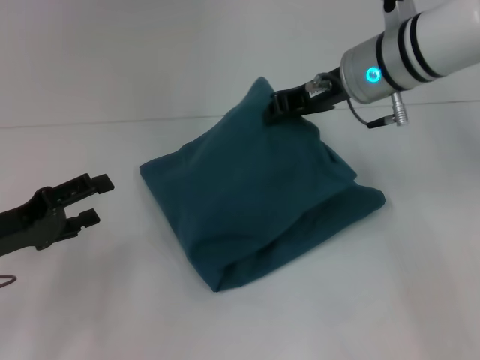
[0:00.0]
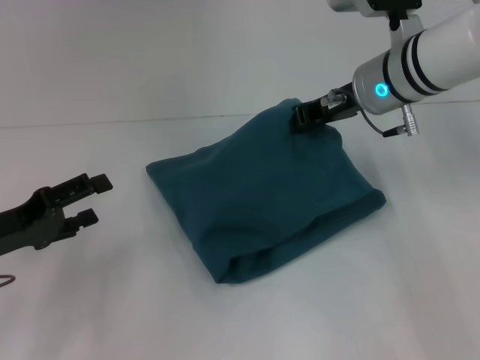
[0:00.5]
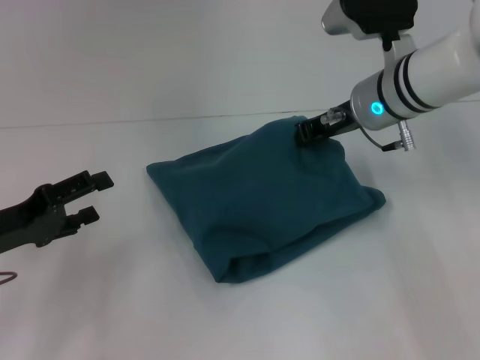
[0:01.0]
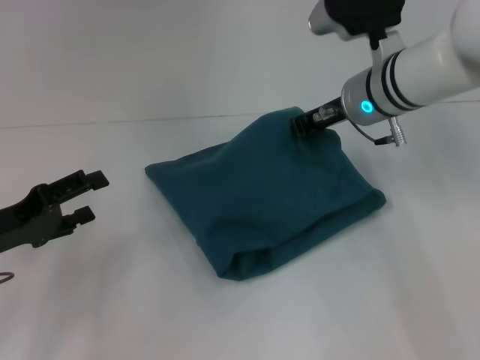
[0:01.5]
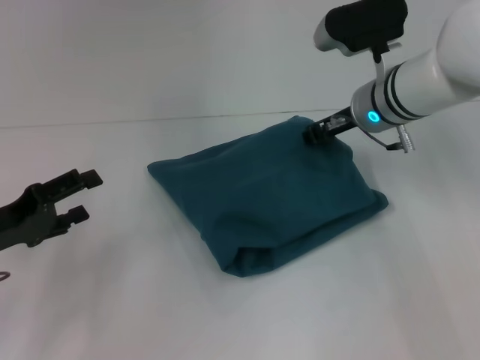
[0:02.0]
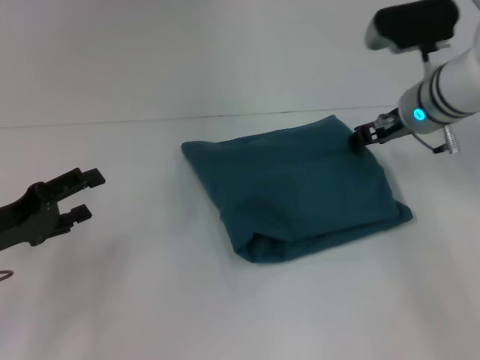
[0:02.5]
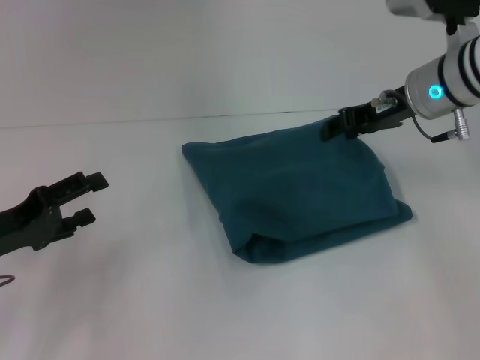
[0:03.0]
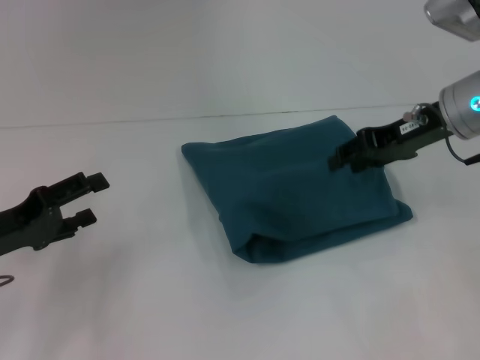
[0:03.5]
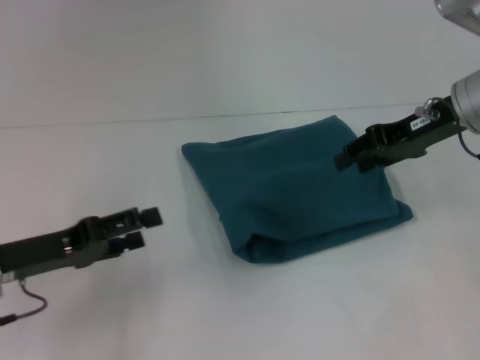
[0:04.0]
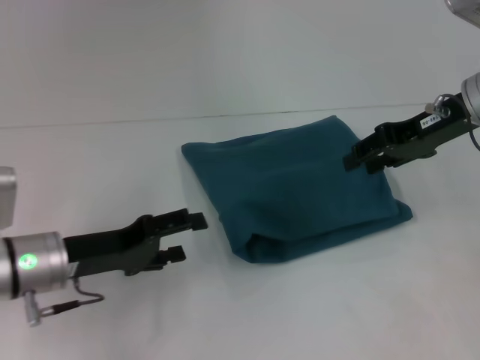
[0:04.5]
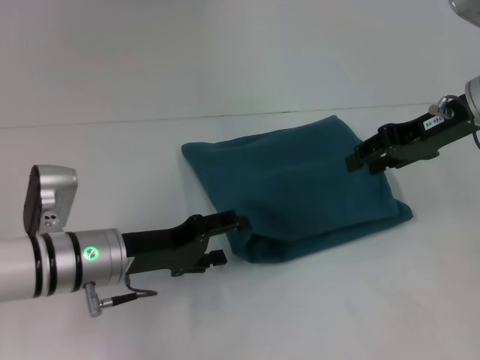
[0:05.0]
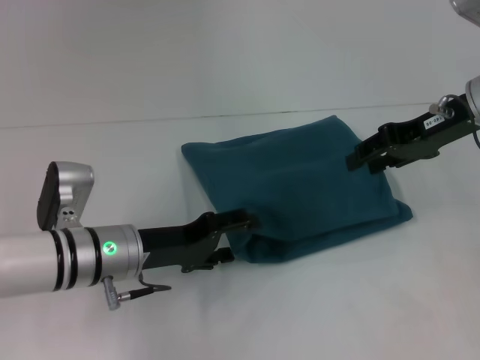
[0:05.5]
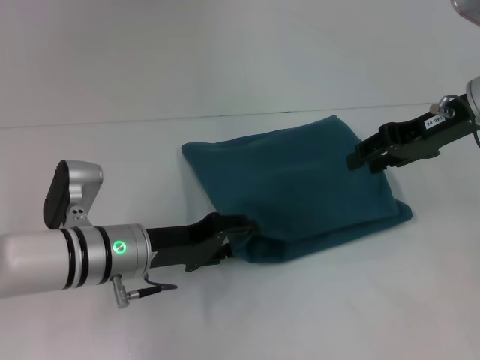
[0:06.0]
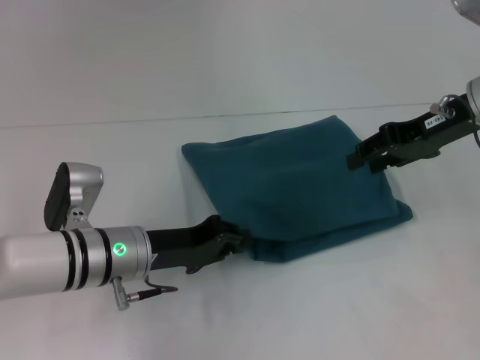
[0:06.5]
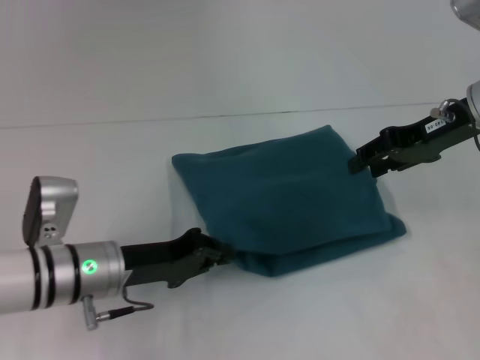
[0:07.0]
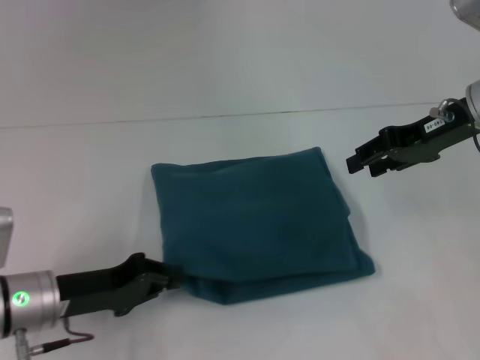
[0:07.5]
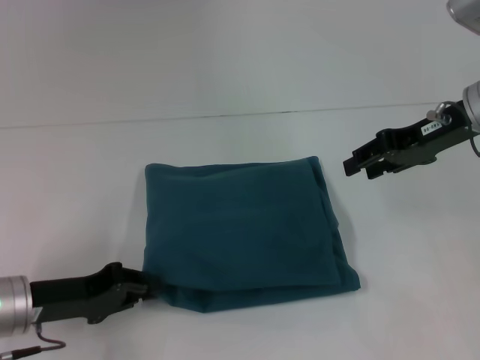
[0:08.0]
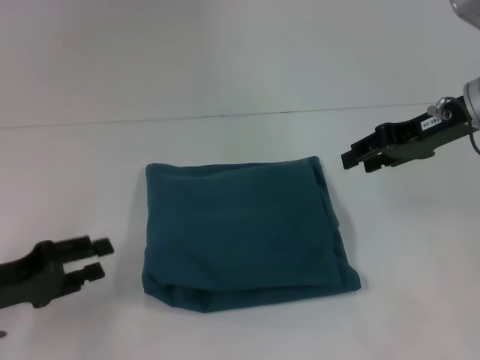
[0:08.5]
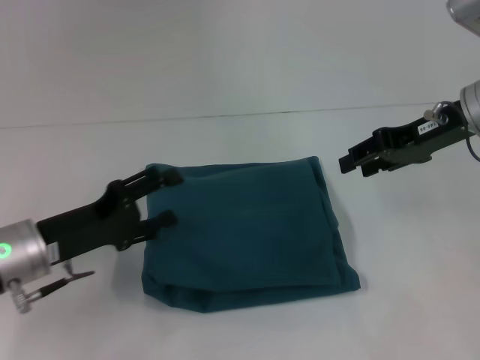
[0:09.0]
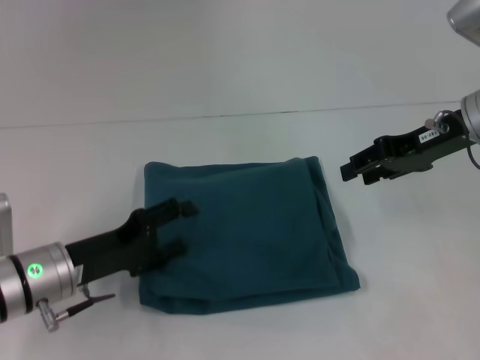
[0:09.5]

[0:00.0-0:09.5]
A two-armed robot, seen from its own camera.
0:00.0 to 0:02.0: The right gripper heads downward, covering about 5 cm.
0:02.0 to 0:04.0: The right gripper moves to the right, approximately 10 cm, and opens its fingers.
0:04.0 to 0:05.5: The left gripper moves to the right, about 10 cm.
0:05.5 to 0:07.5: The left gripper heads to the left, covering roughly 10 cm, and closes its fingers.
0:07.5 to 0:09.5: The left gripper travels to the left and back again, roughly 5 cm each way, and opens up.

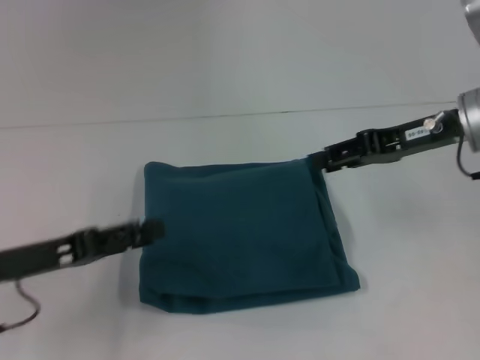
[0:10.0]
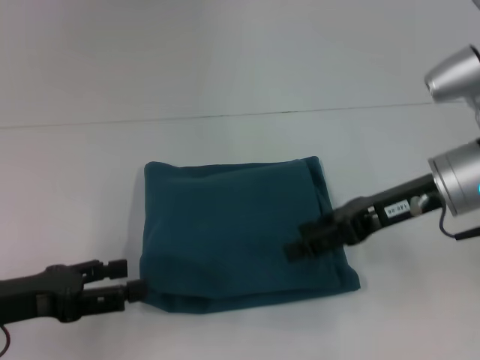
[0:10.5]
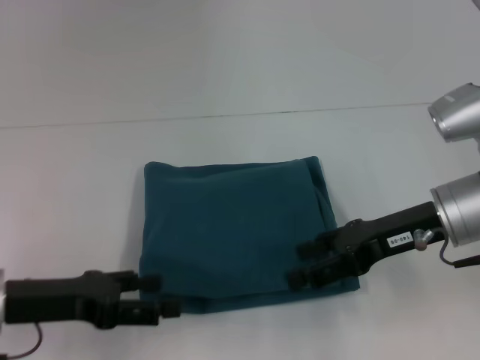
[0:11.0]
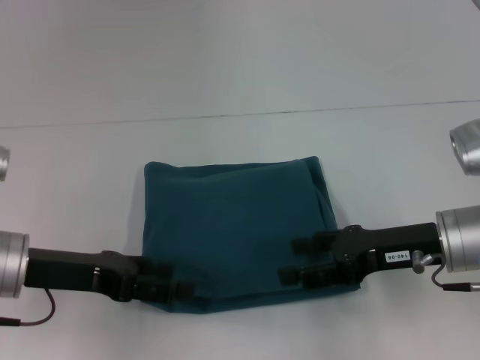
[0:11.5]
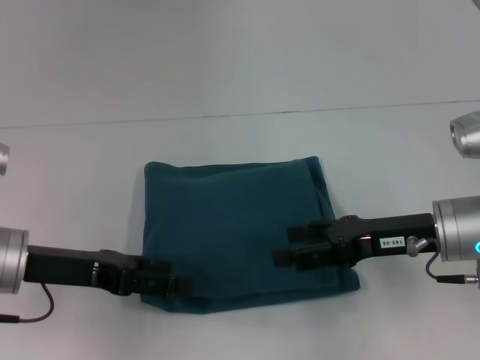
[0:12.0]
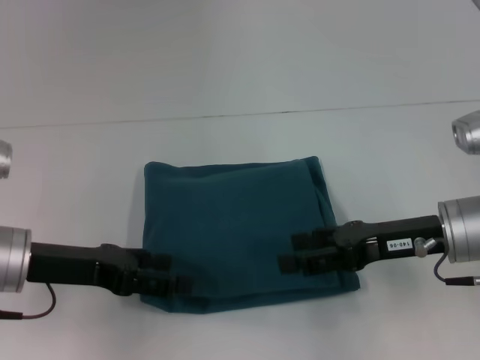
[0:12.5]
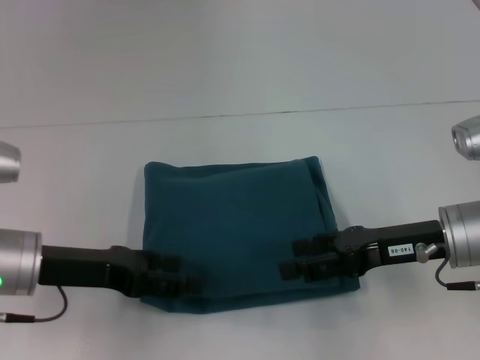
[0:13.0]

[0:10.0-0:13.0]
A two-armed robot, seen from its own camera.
0:10.0 to 0:11.5: The right gripper heads downward and backward, covering some 10 cm.
0:11.5 to 0:13.0: There are only small adjustments of the grippers.

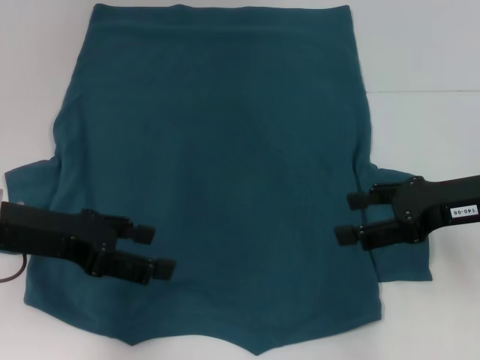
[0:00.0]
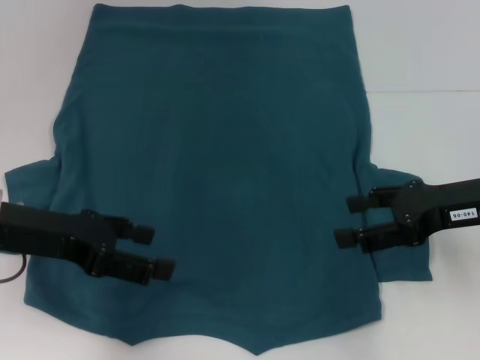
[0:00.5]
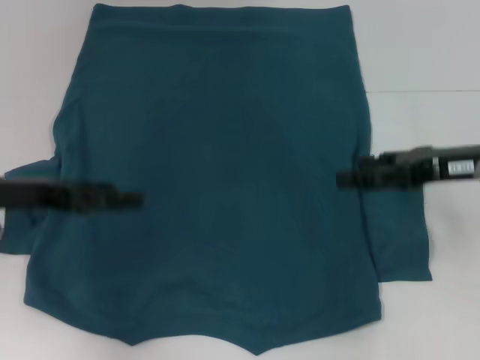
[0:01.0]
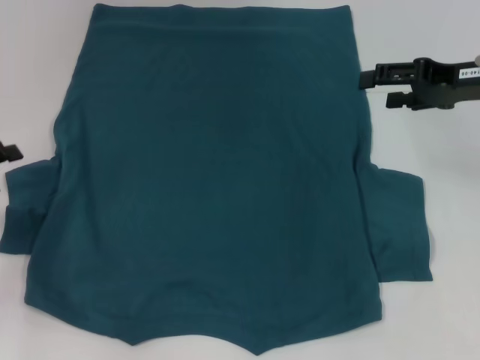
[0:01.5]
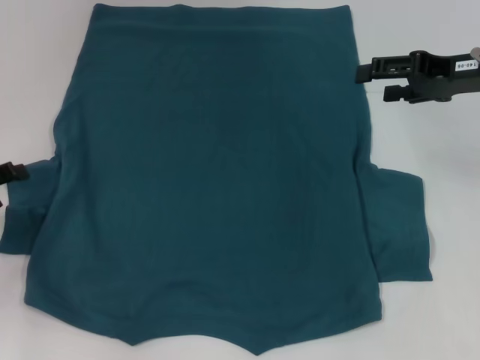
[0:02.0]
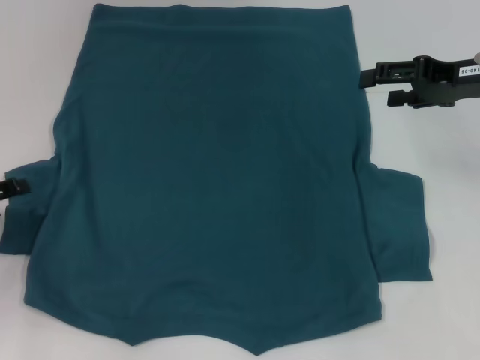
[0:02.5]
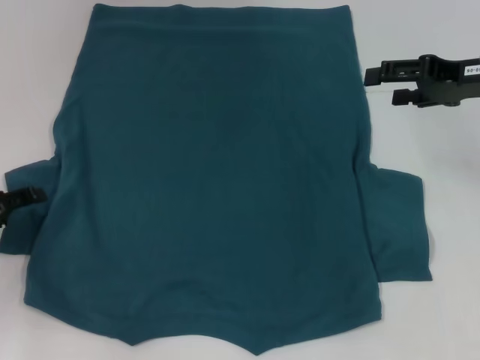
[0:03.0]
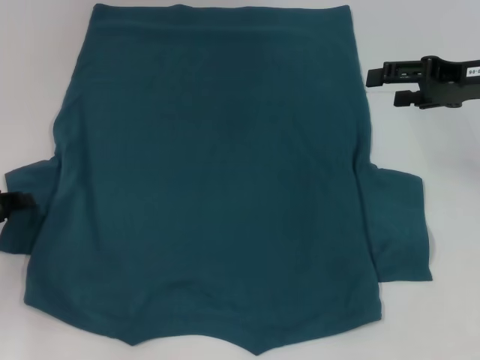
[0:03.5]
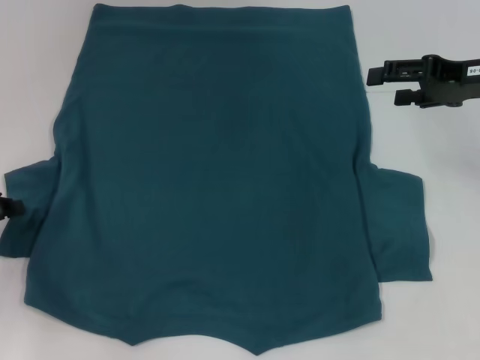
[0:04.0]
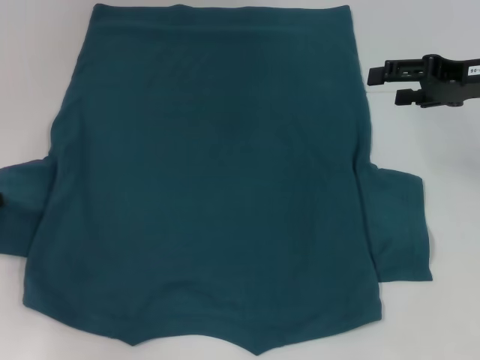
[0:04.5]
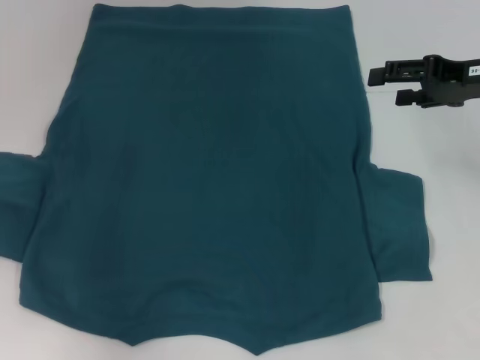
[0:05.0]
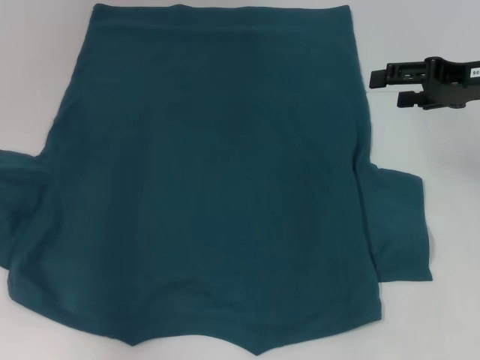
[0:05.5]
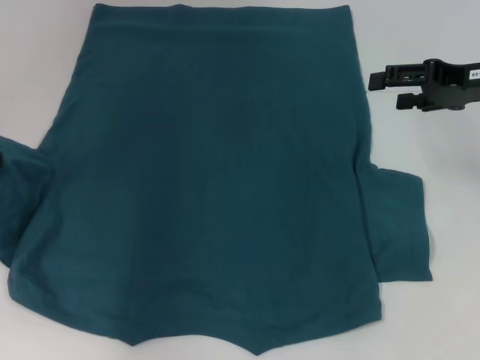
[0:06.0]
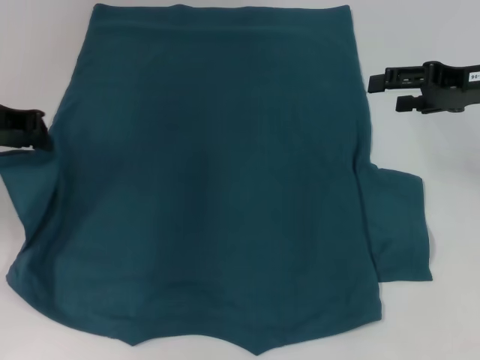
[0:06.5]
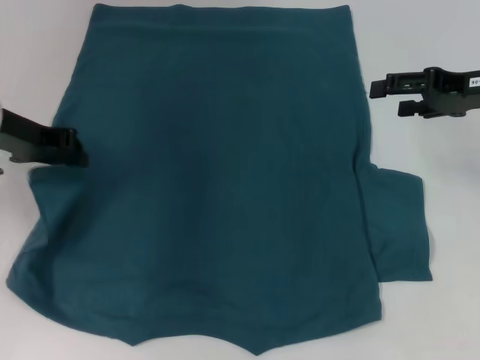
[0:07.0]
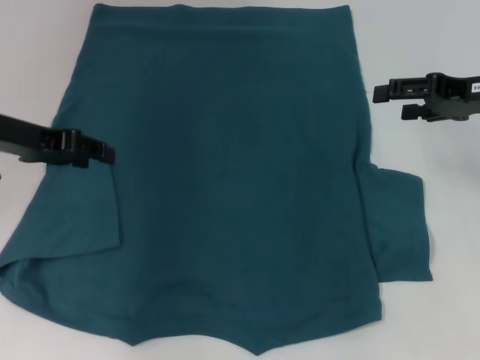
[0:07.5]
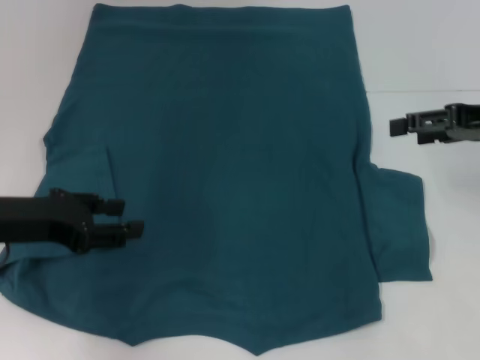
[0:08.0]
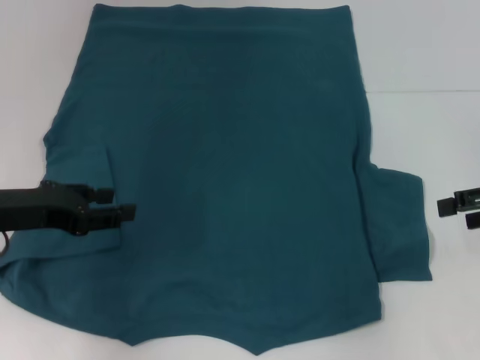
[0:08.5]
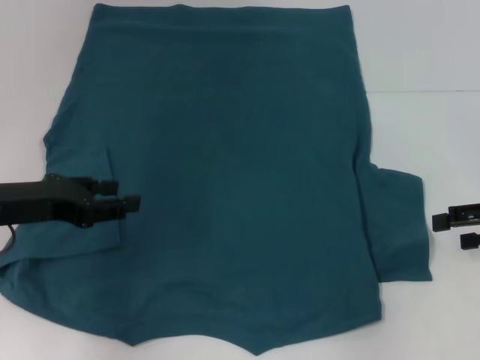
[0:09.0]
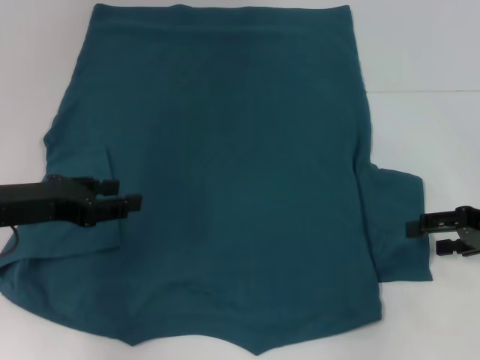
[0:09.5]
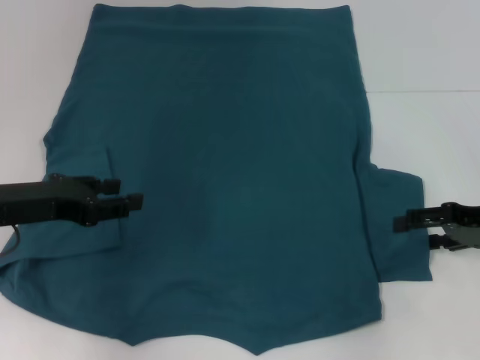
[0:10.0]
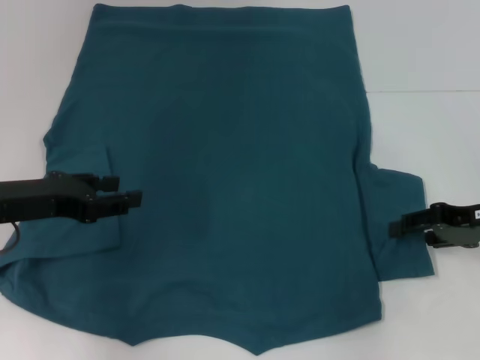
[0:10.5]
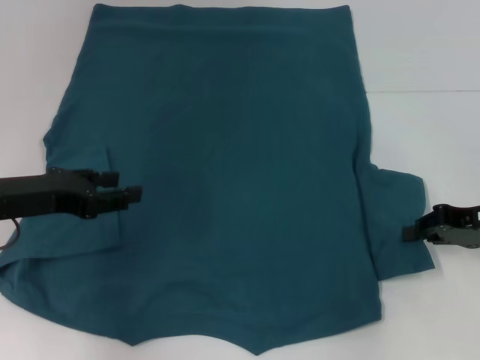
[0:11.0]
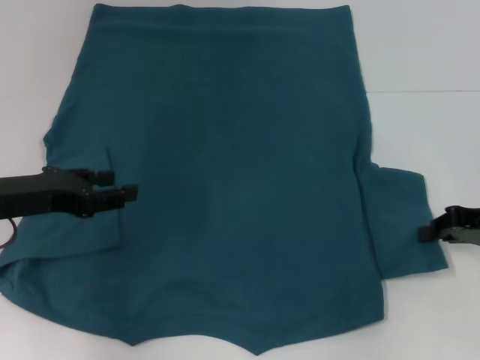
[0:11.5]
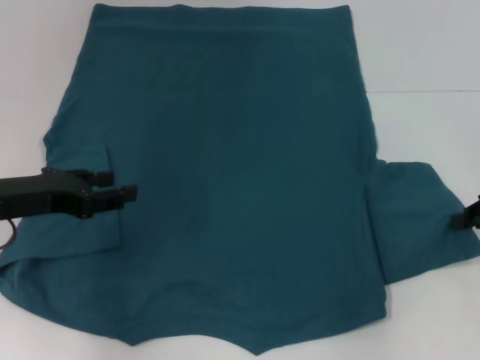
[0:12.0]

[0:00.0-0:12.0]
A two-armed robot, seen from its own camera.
Step, 0:00.0 to 0:07.0: Fold the bottom left sleeve with your left hand.
0:00.0 to 0:02.0: The right gripper moves forward, some 10 cm. Meanwhile the left gripper shifts some 15 cm to the left and downward.
0:02.0 to 0:04.0: The left gripper closes up.
0:04.0 to 0:06.0: The left gripper moves upward and forward, roughly 15 cm.
0:06.0 to 0:08.0: The left gripper goes roughly 10 cm backward, to the right and downward, and opens up.
0:08.0 to 0:10.0: The right gripper moves downward, about 10 cm.
0:10.0 to 0:12.0: The right gripper closes.

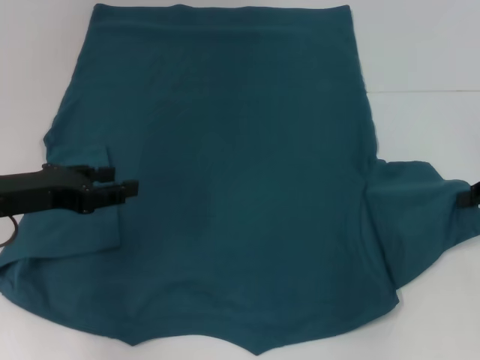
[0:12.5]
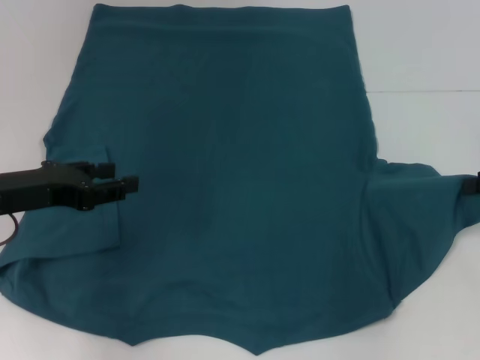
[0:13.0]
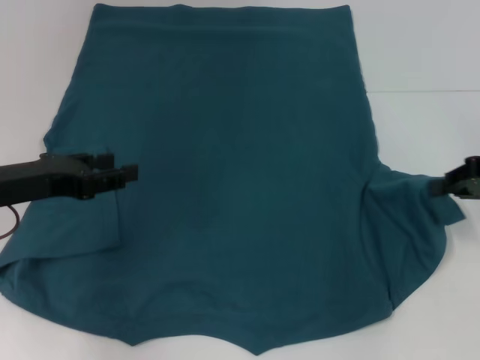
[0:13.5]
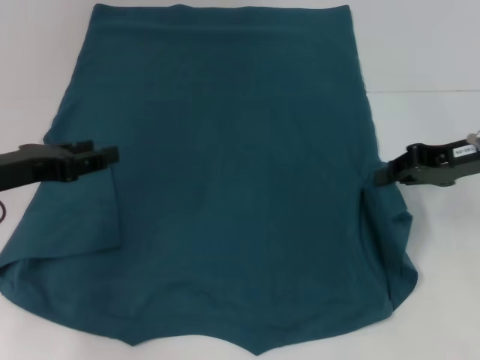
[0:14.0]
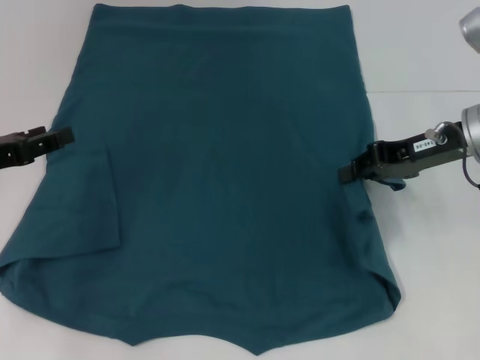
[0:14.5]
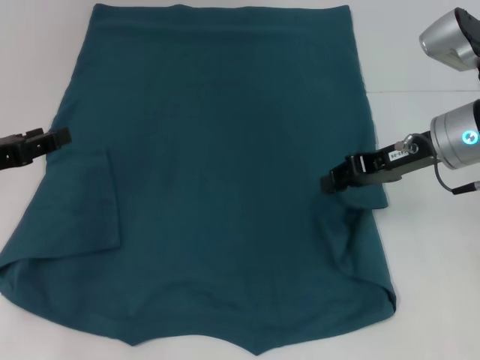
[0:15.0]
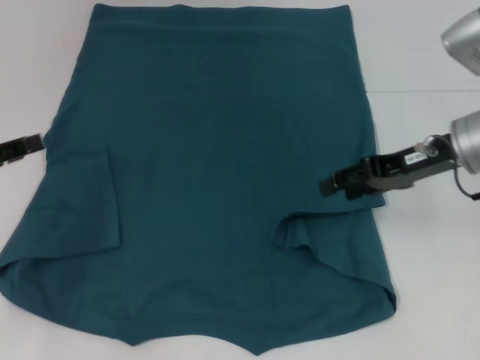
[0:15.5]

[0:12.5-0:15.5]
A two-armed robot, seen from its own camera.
0:12.5 to 0:14.0: The right gripper is displaced to the left by about 10 cm.
0:14.0 to 0:15.5: The left gripper goes roughly 5 cm to the left. Meanwhile the right gripper opens.
